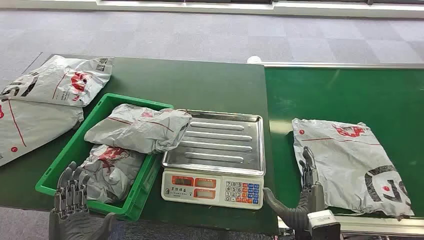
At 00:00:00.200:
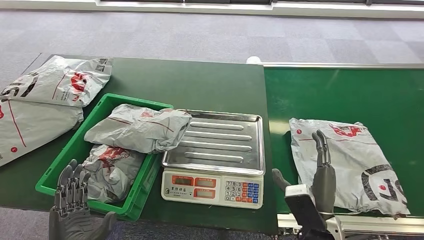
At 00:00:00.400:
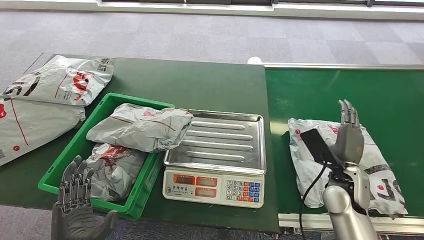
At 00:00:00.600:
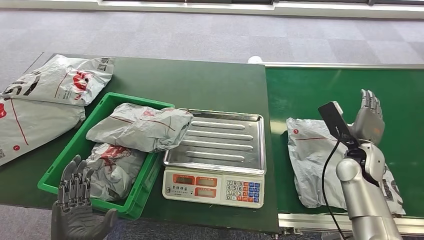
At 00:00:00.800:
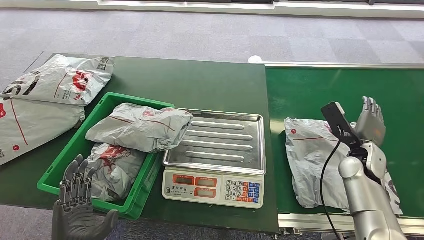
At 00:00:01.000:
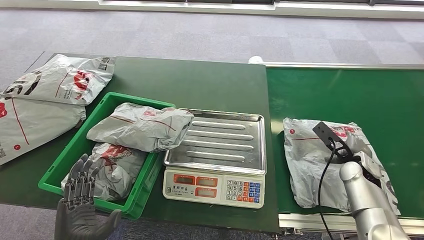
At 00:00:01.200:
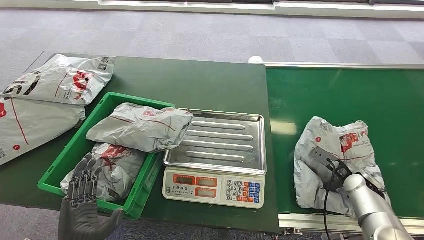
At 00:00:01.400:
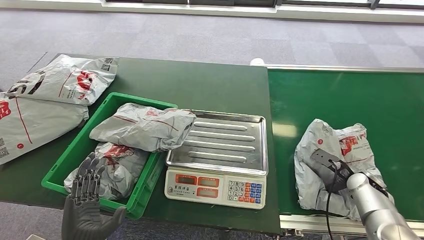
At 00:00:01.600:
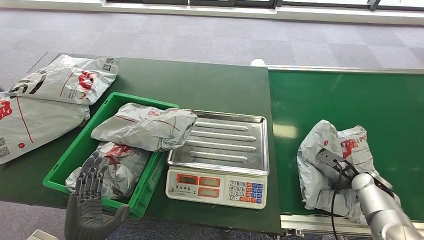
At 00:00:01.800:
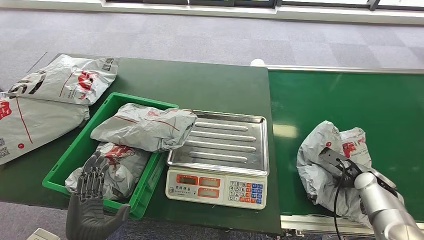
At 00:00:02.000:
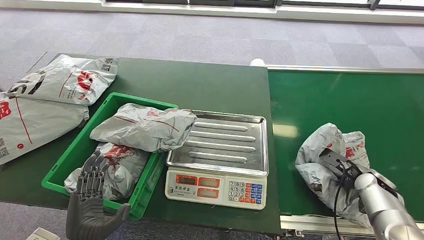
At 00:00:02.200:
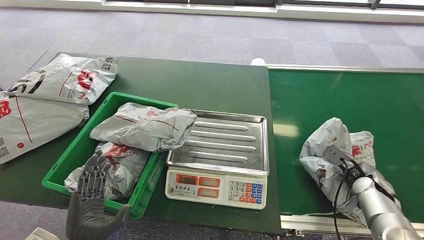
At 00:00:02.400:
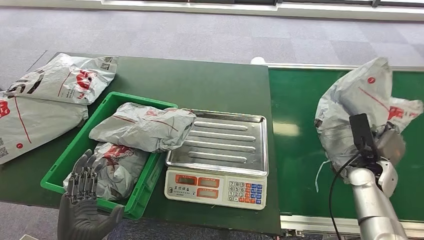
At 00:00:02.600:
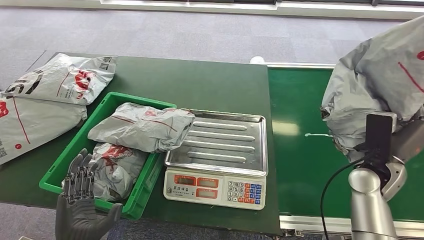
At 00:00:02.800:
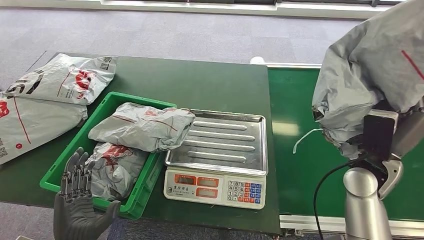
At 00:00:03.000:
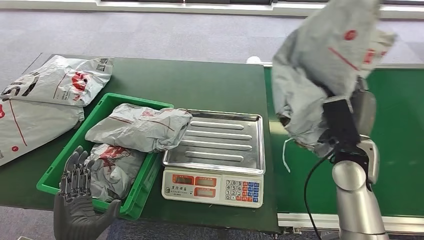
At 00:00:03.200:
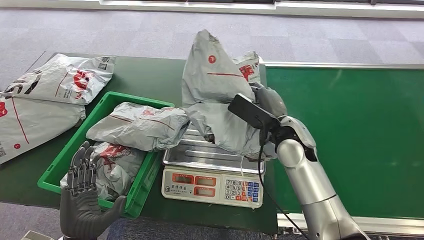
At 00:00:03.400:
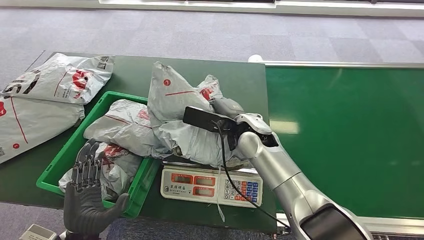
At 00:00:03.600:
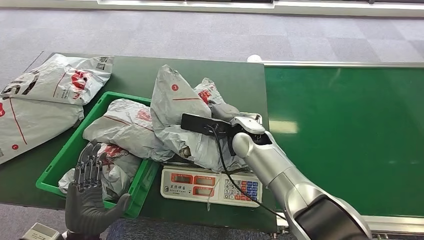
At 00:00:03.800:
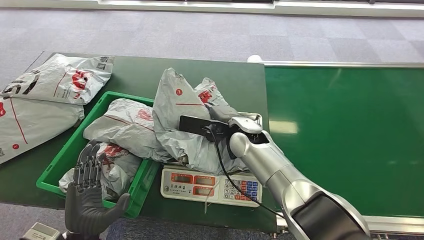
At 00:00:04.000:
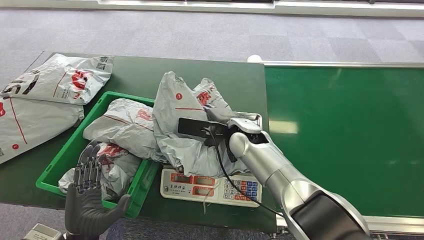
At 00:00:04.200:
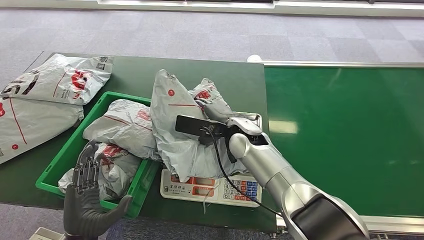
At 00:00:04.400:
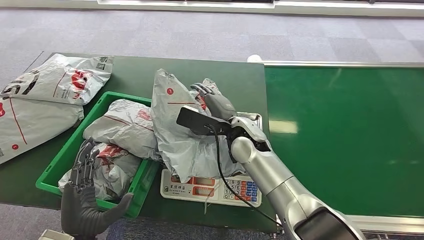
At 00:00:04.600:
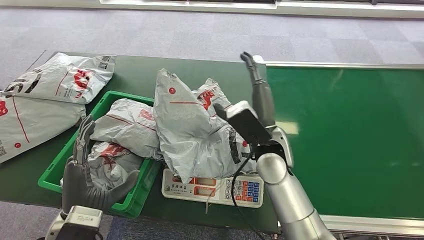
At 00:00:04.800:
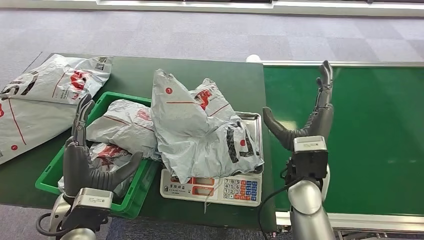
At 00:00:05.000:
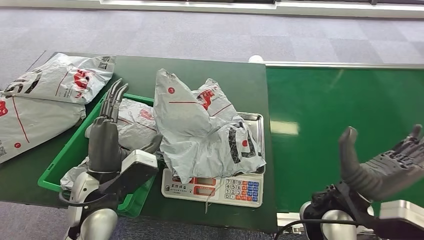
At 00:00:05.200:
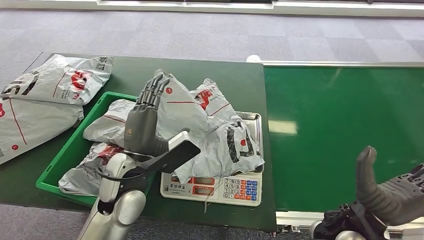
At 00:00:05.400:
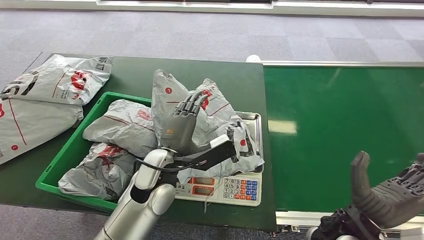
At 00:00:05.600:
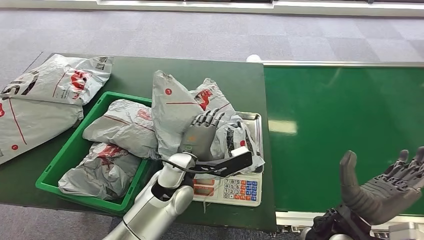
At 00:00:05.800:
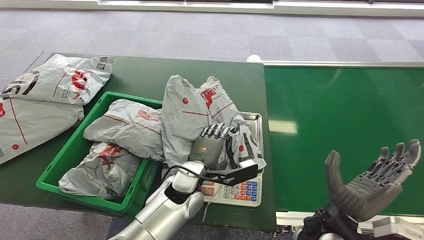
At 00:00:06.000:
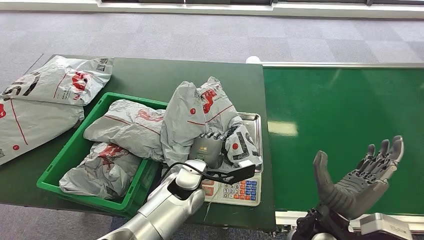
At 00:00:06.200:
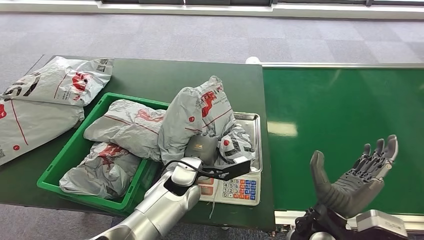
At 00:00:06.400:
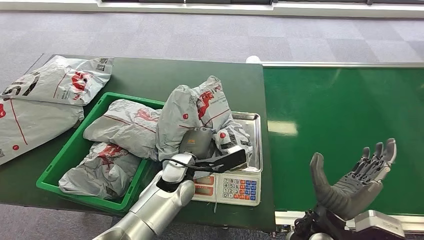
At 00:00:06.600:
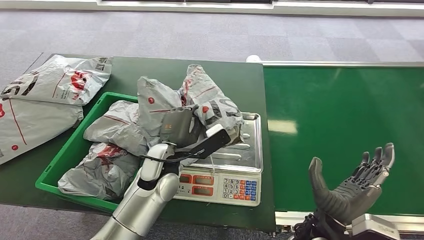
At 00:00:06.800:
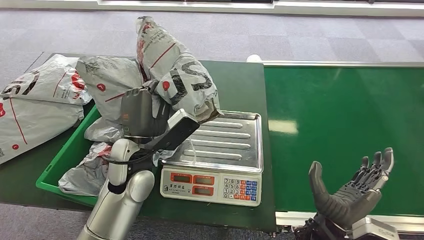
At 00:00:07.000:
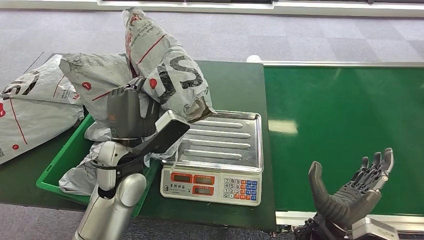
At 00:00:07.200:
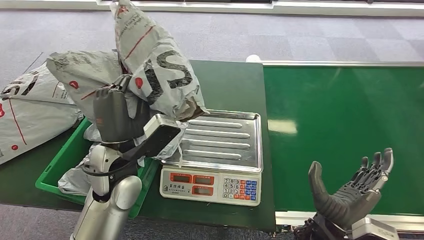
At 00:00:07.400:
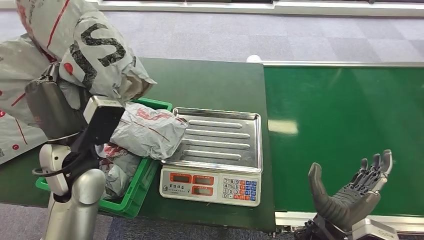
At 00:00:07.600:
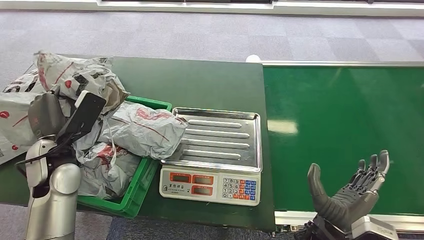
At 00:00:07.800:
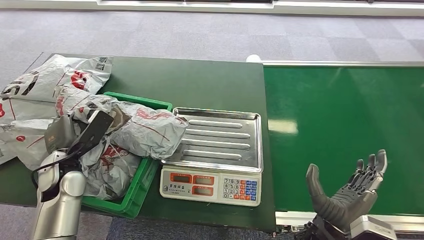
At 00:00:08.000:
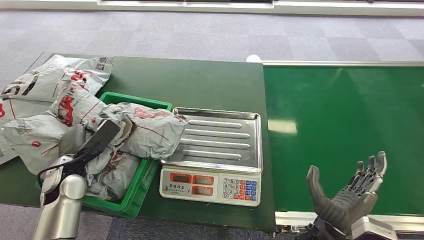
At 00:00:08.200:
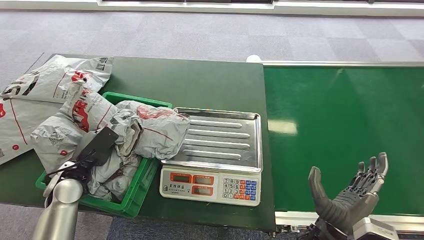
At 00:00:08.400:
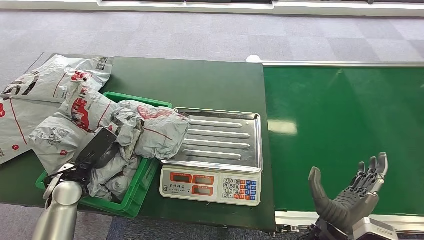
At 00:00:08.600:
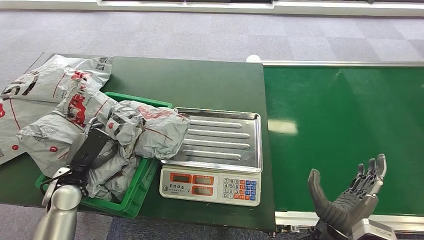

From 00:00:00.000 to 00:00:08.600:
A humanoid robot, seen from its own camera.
Step, from 00:00:00.000 to 00:00:02.400: Pick up the package from the conveyor belt.
Step, from 00:00:02.600 to 00:00:04.600: Place the package onto the inbound machine.
Step, from 00:00:04.800 to 00:00:06.400: Pick up the package from the inbound machine.
Step, from 00:00:06.800 to 00:00:08.600: Place the package into the parcel locker.
